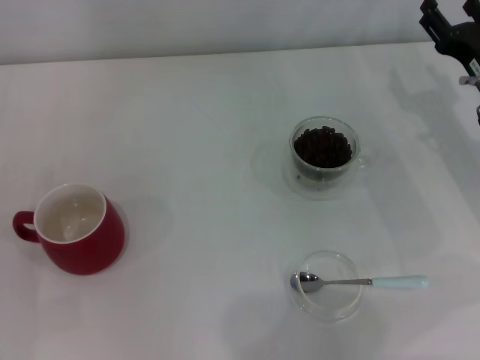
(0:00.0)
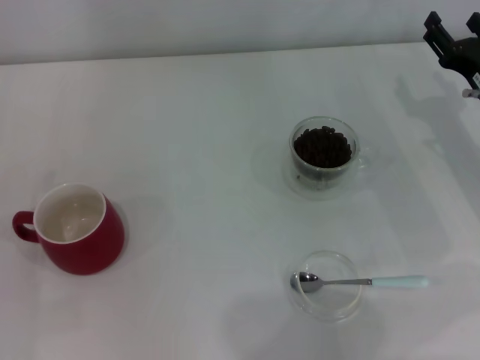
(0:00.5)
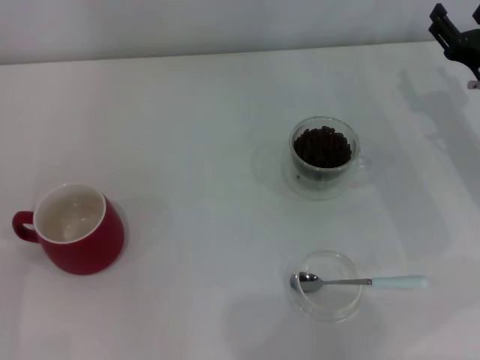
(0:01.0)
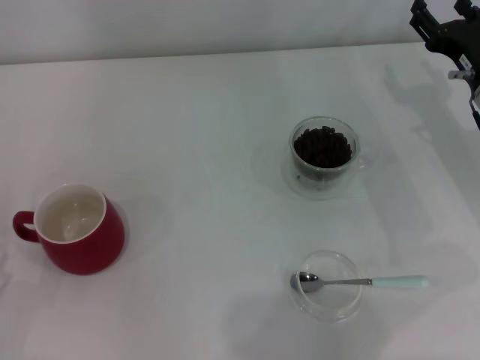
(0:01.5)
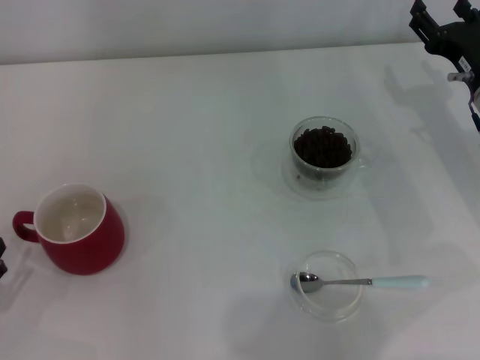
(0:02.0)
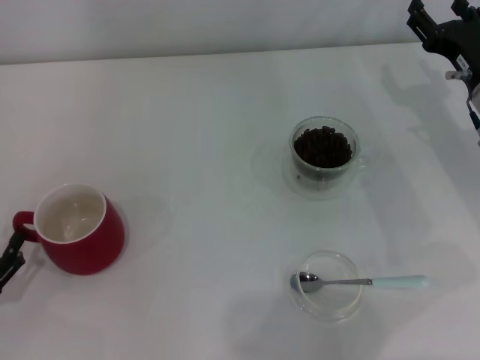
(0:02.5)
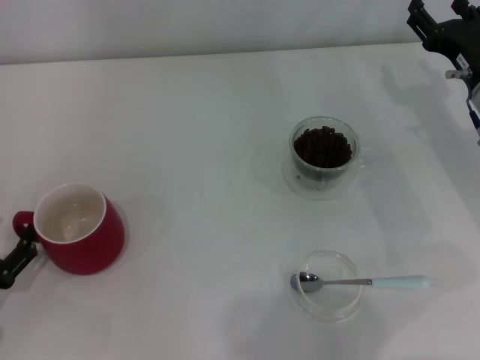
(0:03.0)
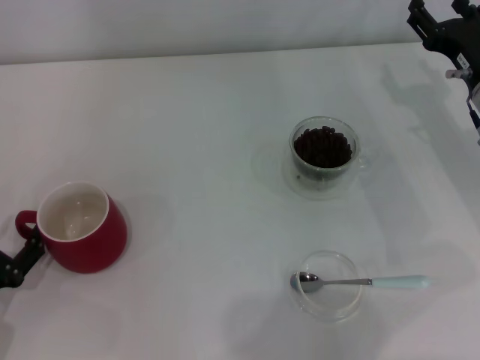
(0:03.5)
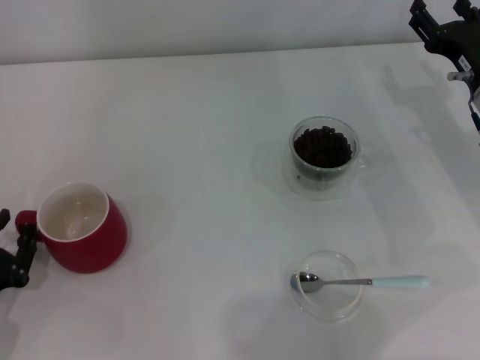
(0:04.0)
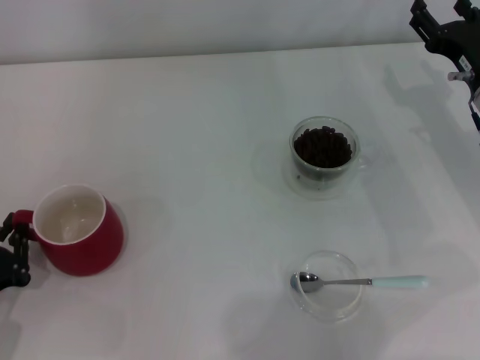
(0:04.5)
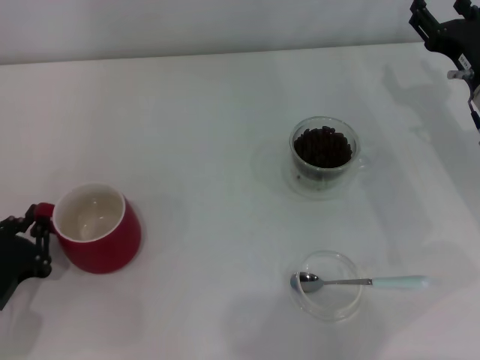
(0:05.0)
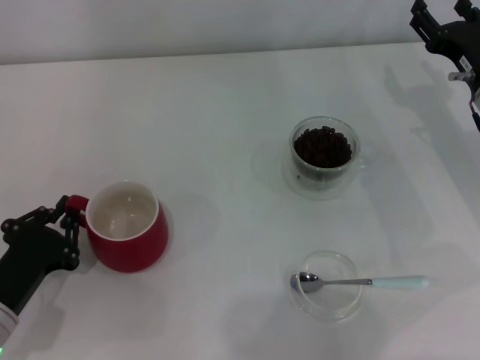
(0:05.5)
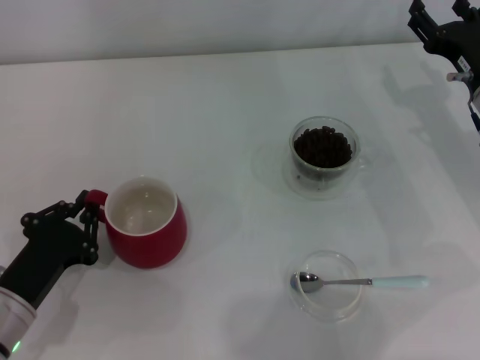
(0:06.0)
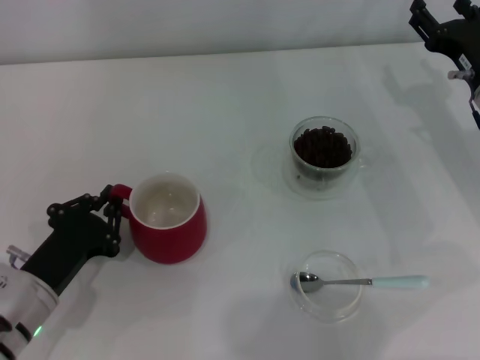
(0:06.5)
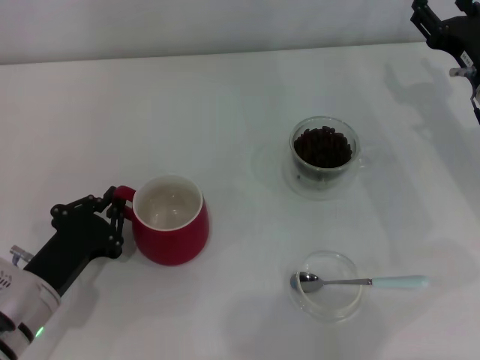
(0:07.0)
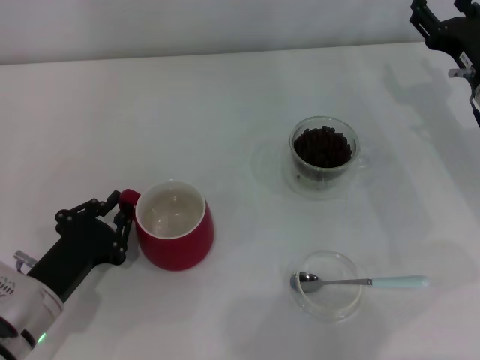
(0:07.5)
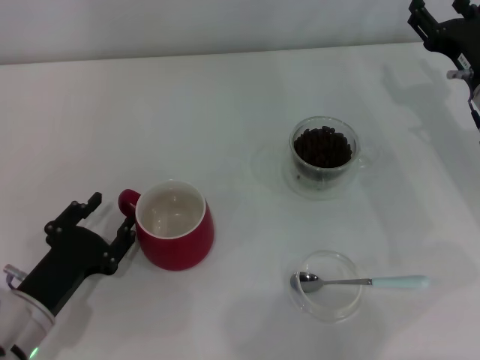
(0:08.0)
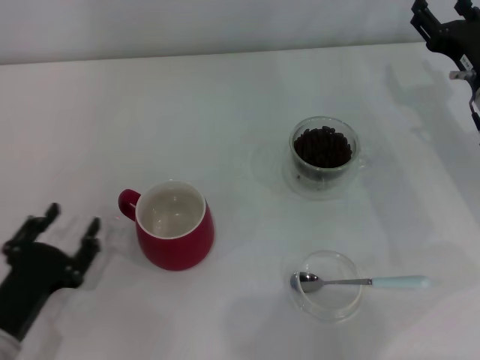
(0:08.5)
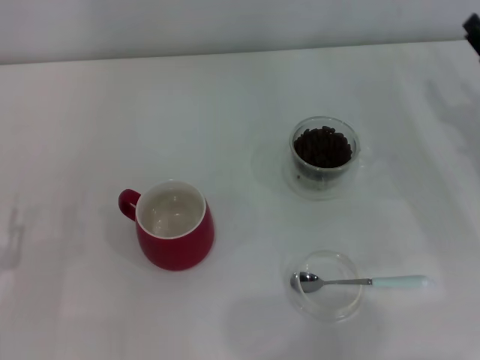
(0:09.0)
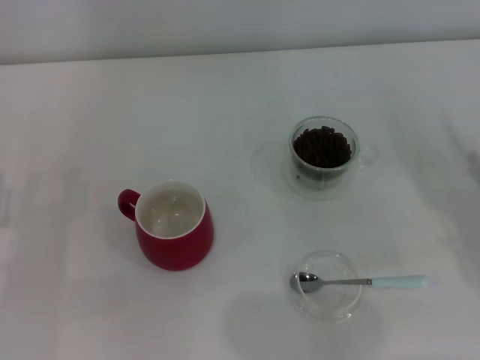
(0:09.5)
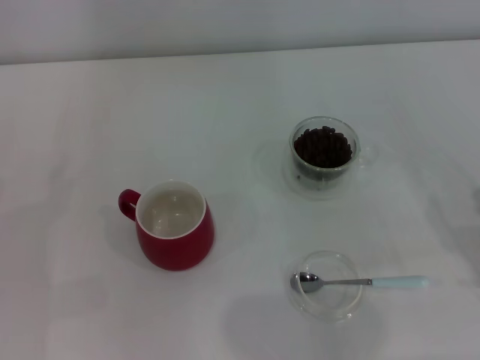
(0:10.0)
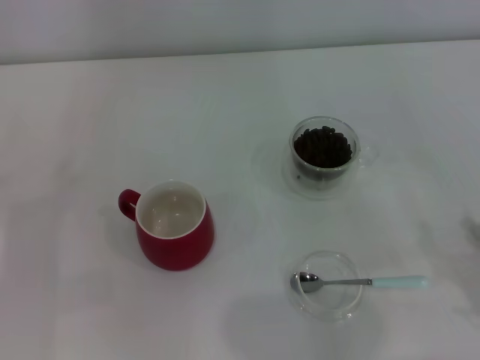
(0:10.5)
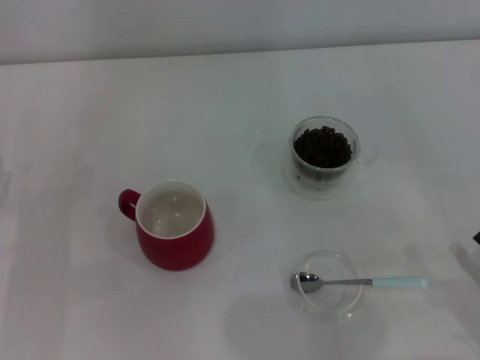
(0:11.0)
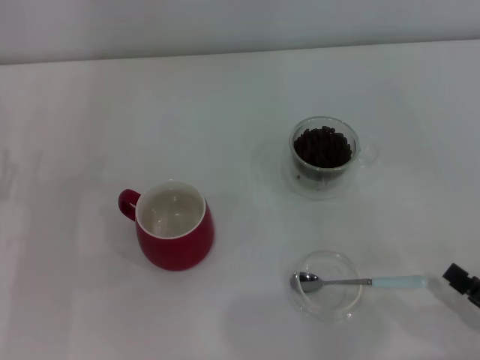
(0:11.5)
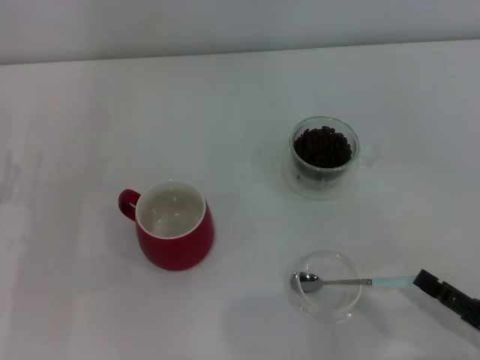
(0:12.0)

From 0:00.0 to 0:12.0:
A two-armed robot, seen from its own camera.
Task of the whole recording: Use a blue spoon to take out the coffee beans from the glass and pour them into the red cup.
Step, from 0:00.0 to 0:08.0: Move the cup to the center of view with the left gripper.
From 0:02.0 to 0:04.0: The left gripper closes.
From 0:04.0 to 0:06.0: The left gripper goes roughly 5 cm to the right, and closes.
From 0:06.0 to 0:08.0: The left gripper opens.
From 0:08.0 to 0:10.0: The left gripper travels to the left by about 10 cm, and opens; the right gripper goes about 20 cm backward.
From 0:10.0 to 0:12.0: The right gripper moves backward, approximately 5 cm.

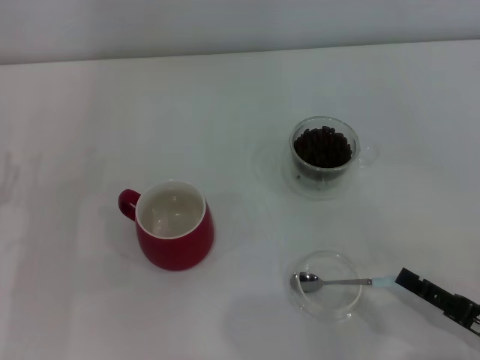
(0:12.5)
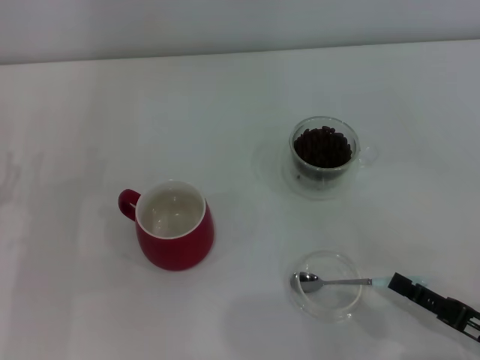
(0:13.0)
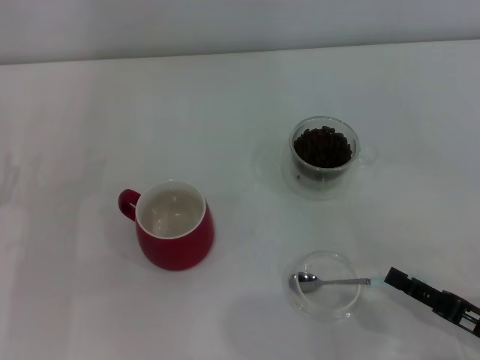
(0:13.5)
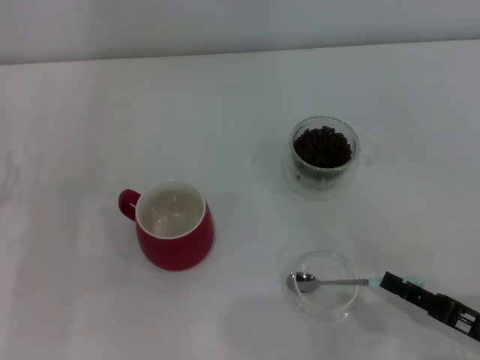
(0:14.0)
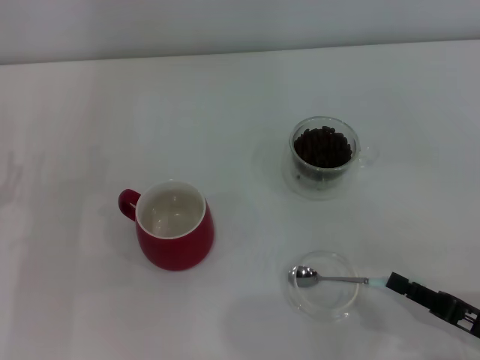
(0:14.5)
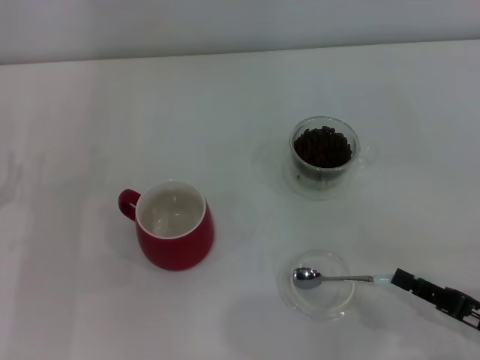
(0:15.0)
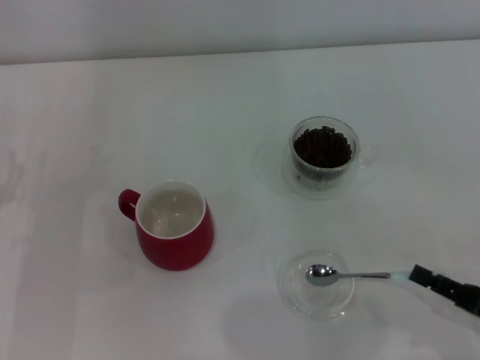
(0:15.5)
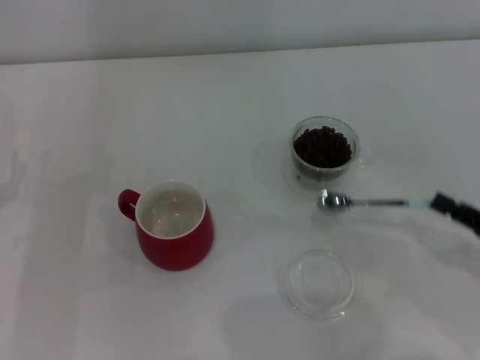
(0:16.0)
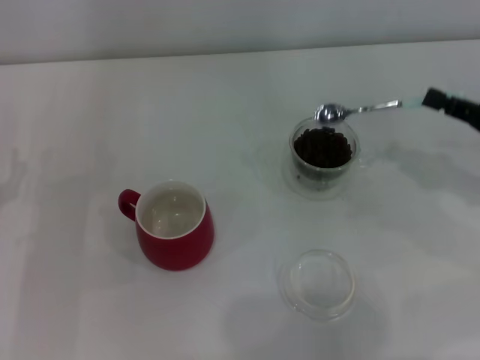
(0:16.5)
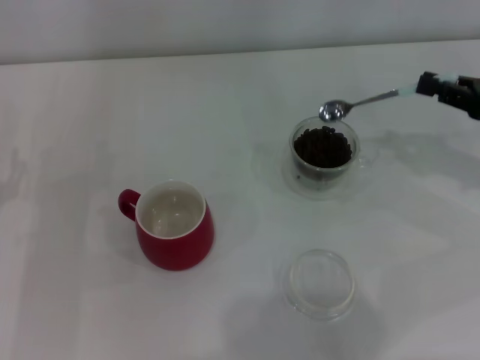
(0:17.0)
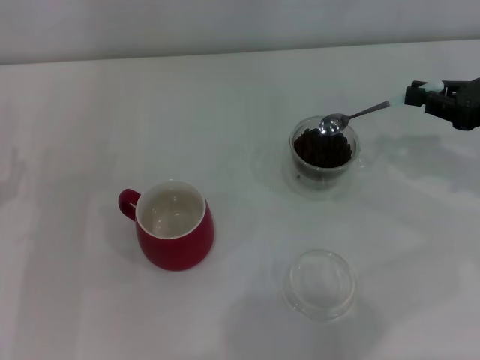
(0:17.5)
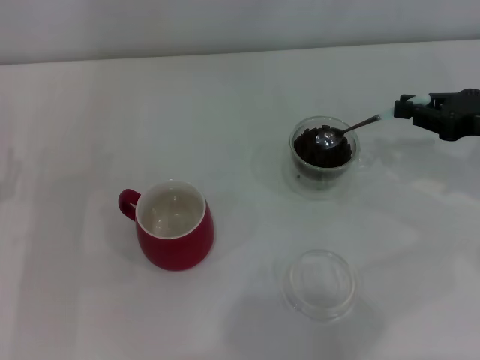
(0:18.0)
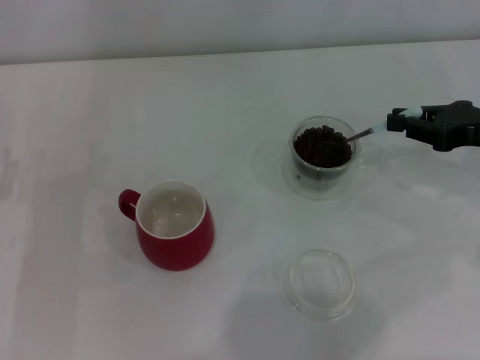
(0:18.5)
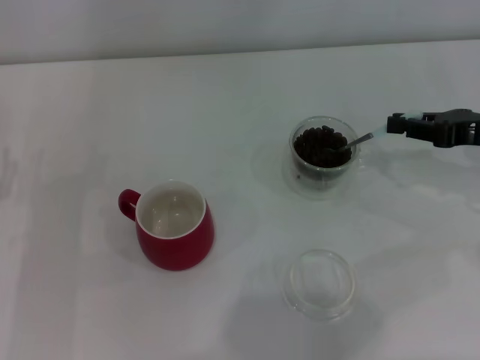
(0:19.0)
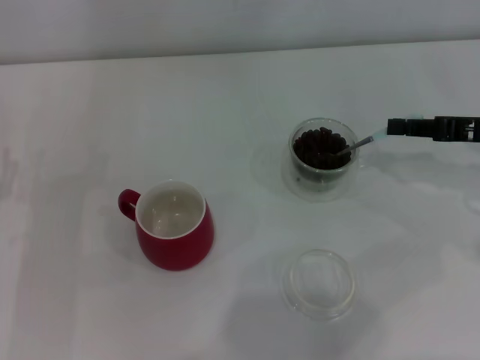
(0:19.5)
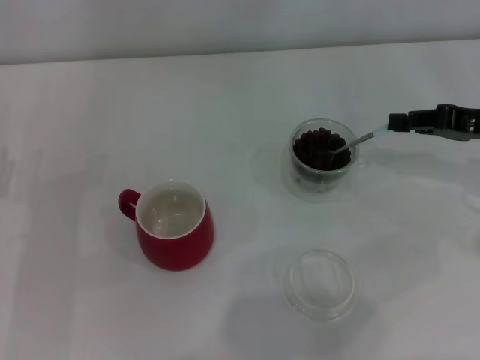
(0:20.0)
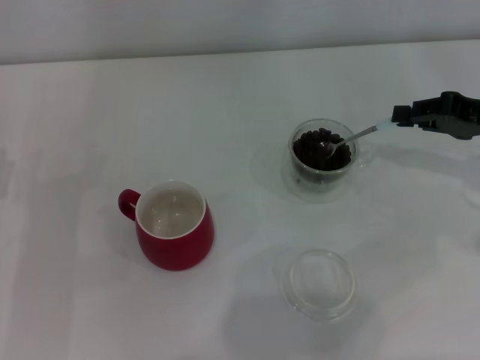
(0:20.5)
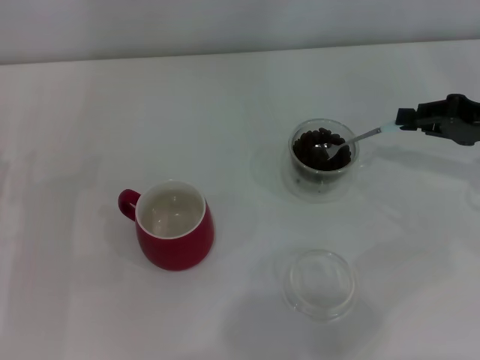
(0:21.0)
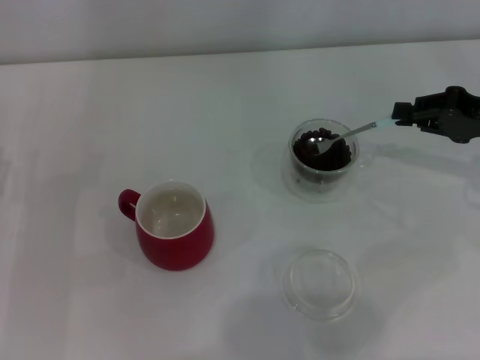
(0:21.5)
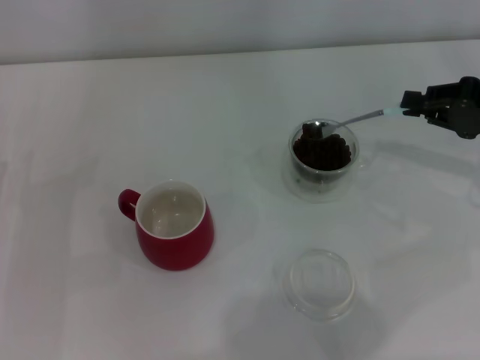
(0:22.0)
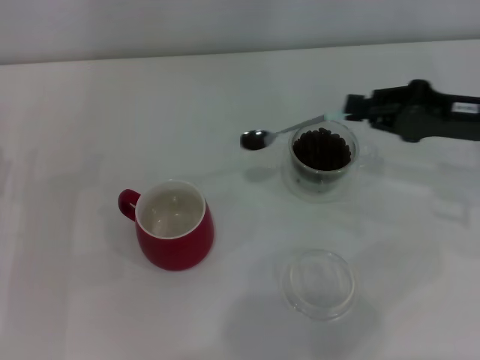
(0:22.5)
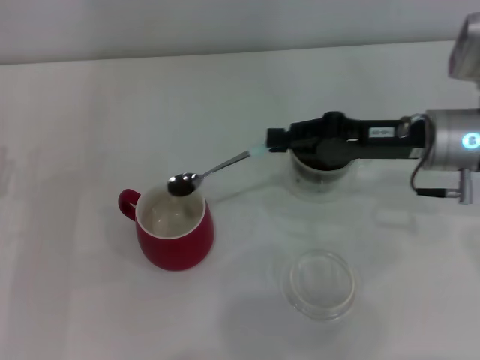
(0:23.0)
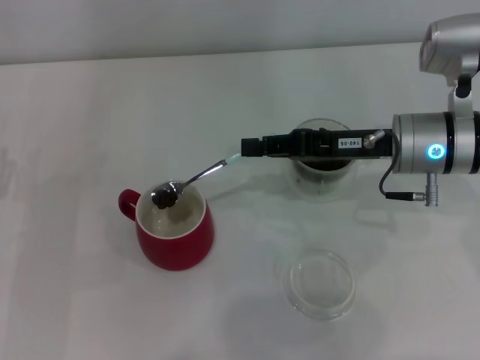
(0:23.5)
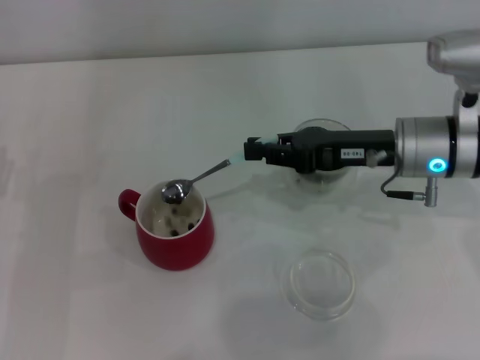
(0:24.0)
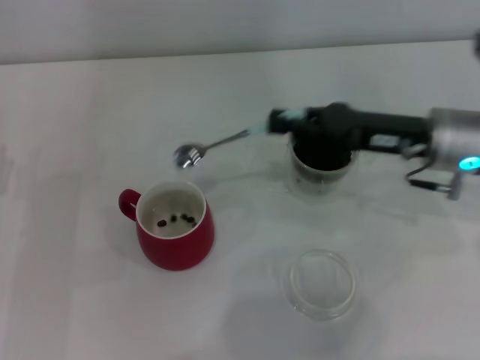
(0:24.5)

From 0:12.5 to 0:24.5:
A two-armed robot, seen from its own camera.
Task of the whole recording: Use a blue spoon to take out the coffee beans from the glass and pour them into the red cup.
Step, from 0:12.5 to 0:15.5: Pick up the spoon with the right gripper.
Step, from 0:16.0 to 0:24.0: Scoop a spoonful of beans into the cup with the right gripper.
From 0:12.5 to 0:14.5: The right gripper closes up.
From 0:14.5 to 0:16.5: The right gripper moves forward and upward, some 20 cm.
From 0:22.5 to 0:24.5: The right gripper moves to the left, some 5 cm.

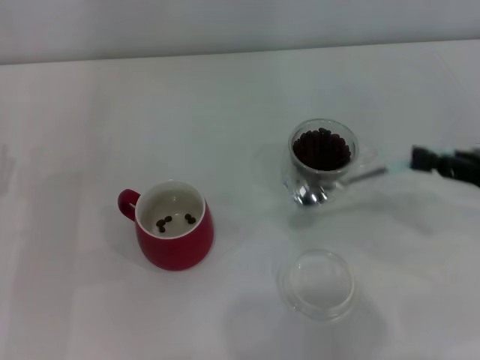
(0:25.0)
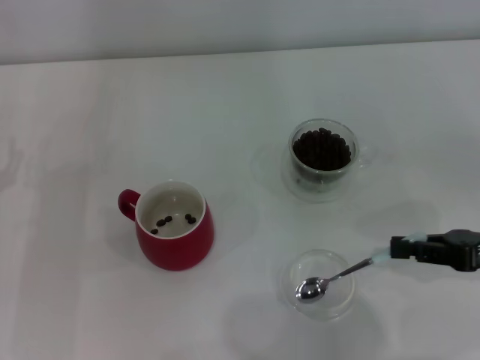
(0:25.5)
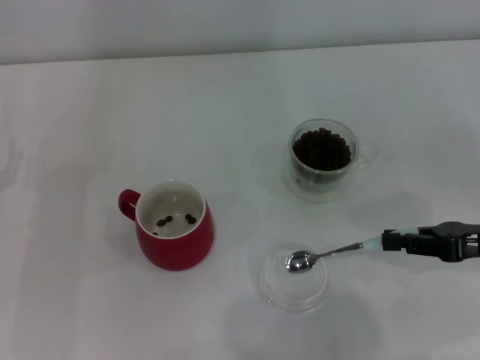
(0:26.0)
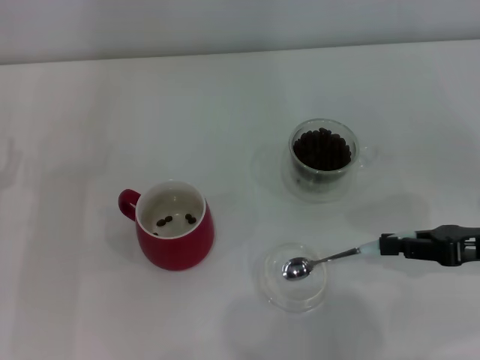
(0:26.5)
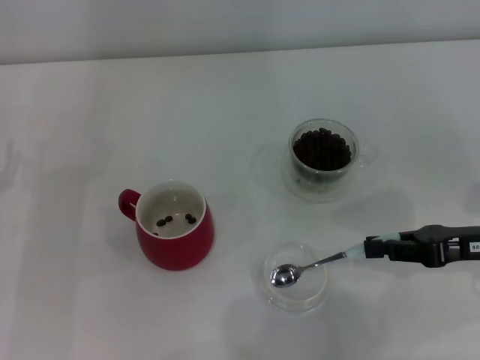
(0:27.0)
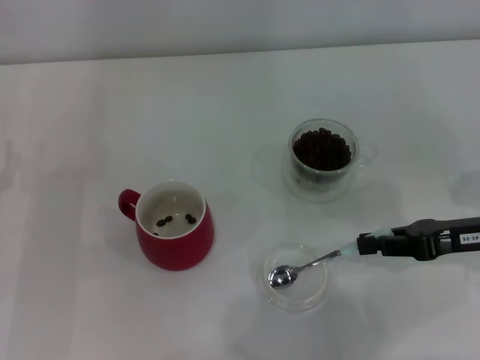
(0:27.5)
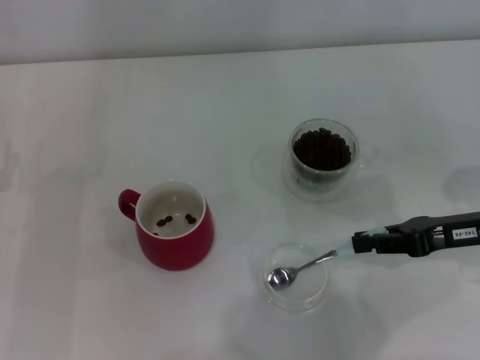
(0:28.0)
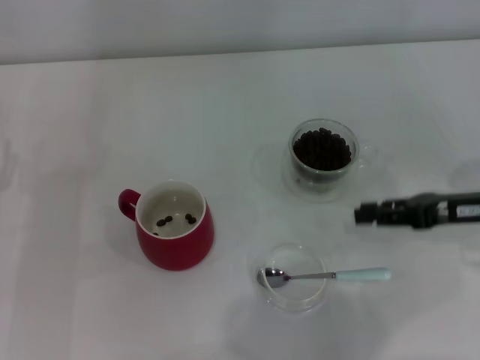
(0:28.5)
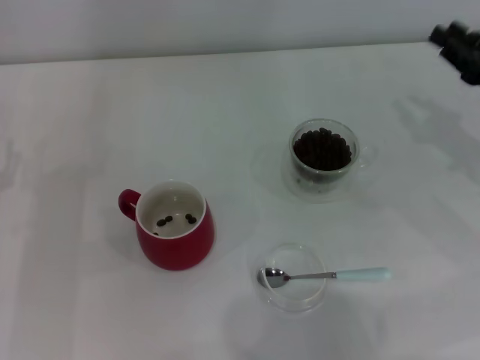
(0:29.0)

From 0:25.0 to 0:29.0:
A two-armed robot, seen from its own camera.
Task of the whole recording: Use a blue spoon to take out the coffee beans from the glass and pour them into the red cup.
Step, from 0:25.0 to 0:28.0: Place the spoon back in its original place with the right gripper.
From 0:25.0 to 0:27.0: The right gripper changes place by approximately 5 cm.
From 0:27.0 to 0:29.0: The right gripper heads forward, covering some 5 cm.
